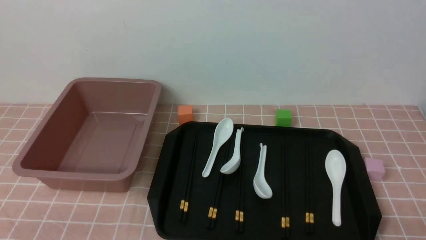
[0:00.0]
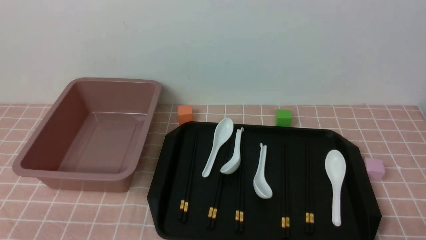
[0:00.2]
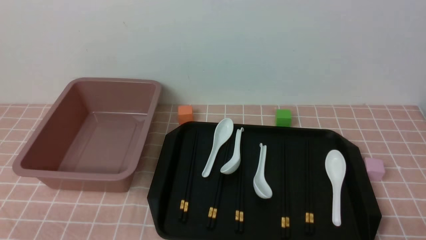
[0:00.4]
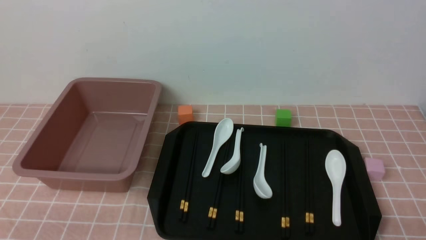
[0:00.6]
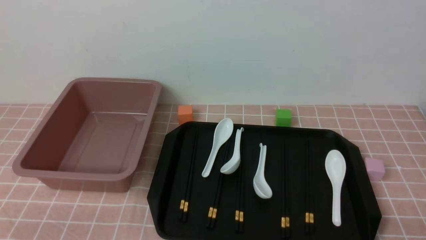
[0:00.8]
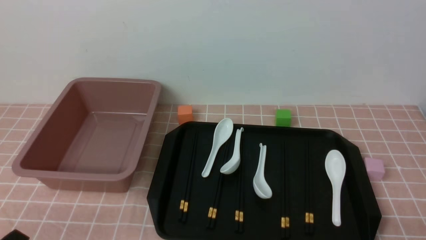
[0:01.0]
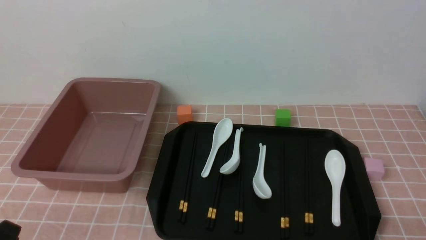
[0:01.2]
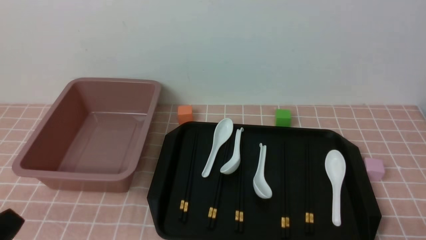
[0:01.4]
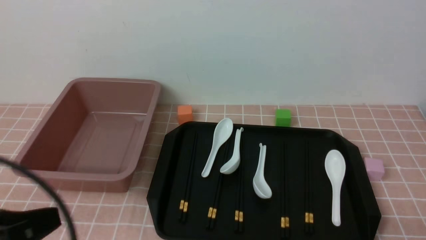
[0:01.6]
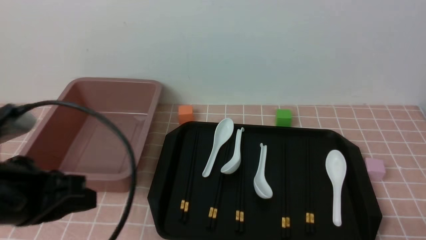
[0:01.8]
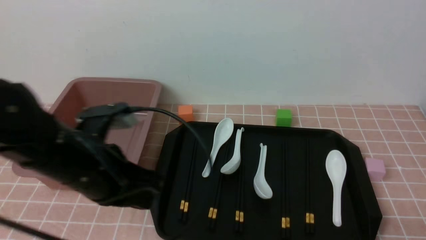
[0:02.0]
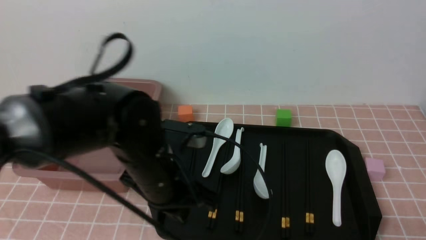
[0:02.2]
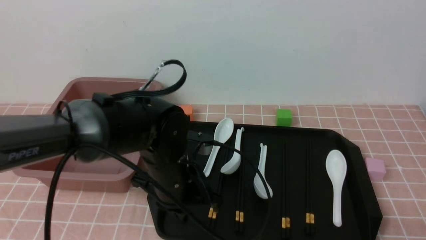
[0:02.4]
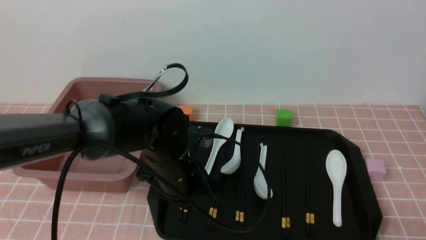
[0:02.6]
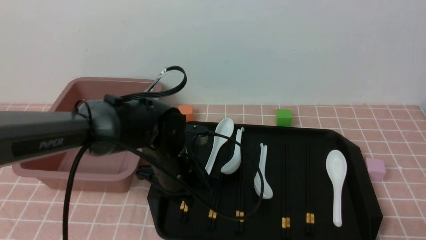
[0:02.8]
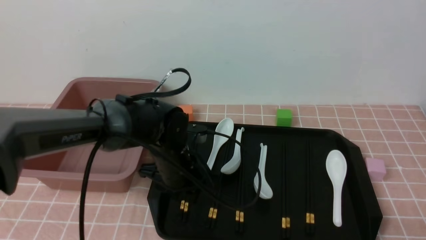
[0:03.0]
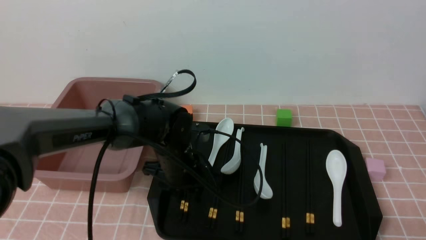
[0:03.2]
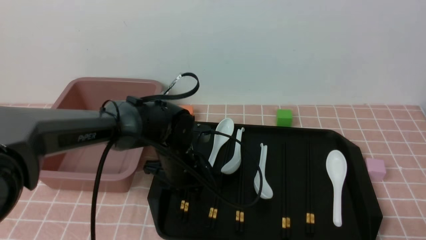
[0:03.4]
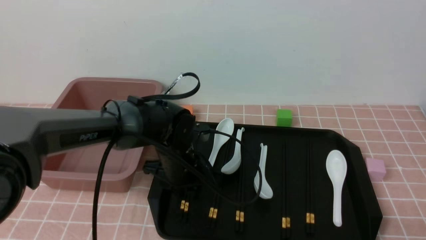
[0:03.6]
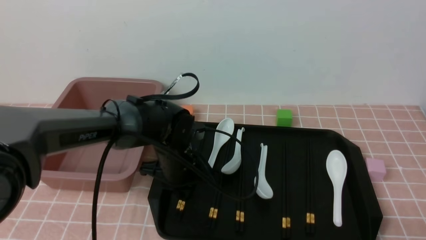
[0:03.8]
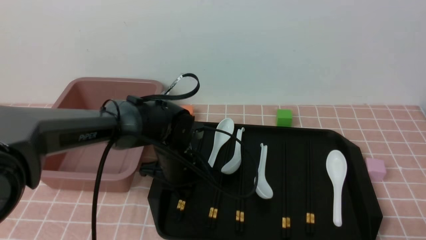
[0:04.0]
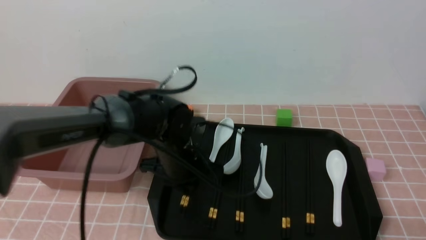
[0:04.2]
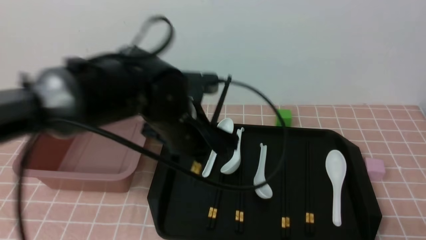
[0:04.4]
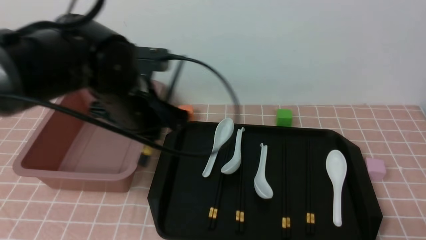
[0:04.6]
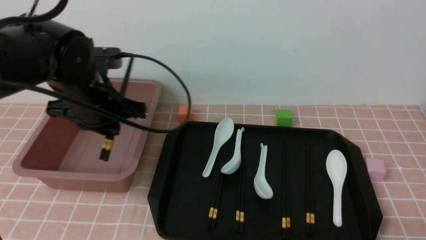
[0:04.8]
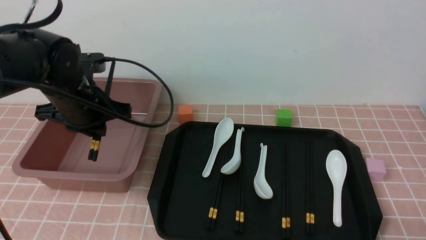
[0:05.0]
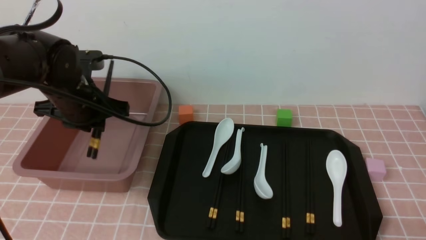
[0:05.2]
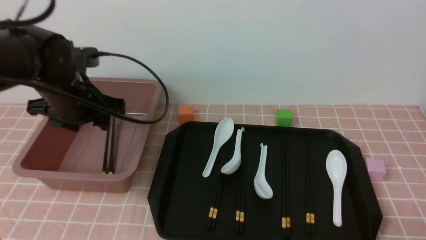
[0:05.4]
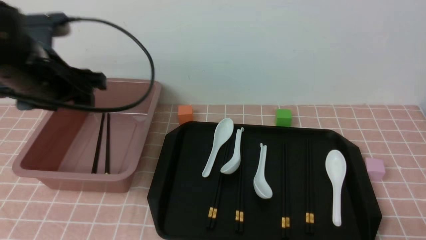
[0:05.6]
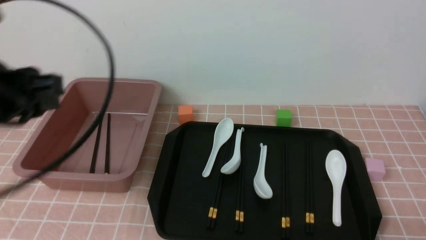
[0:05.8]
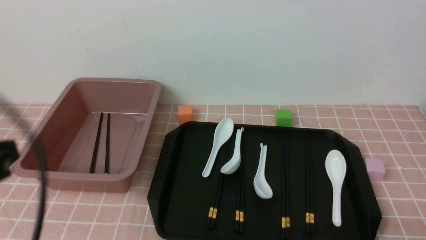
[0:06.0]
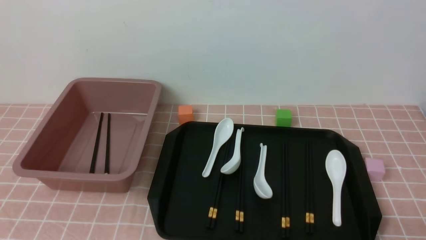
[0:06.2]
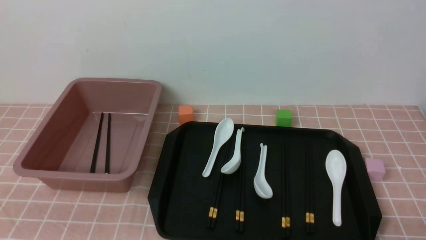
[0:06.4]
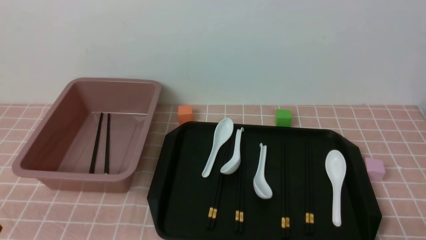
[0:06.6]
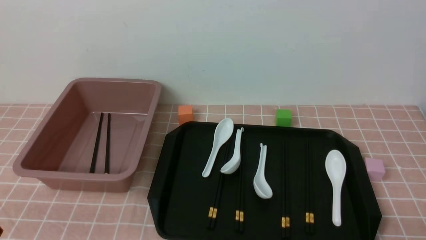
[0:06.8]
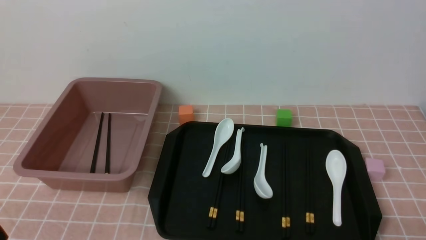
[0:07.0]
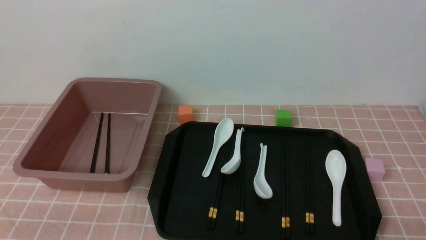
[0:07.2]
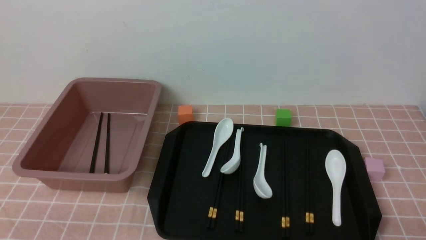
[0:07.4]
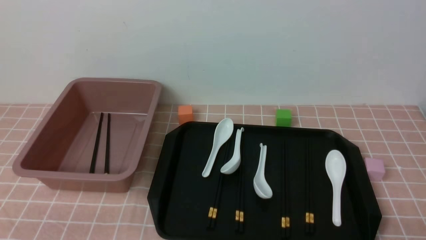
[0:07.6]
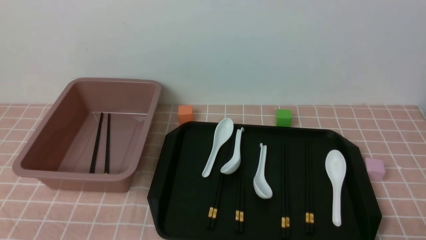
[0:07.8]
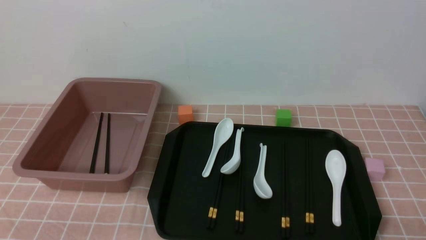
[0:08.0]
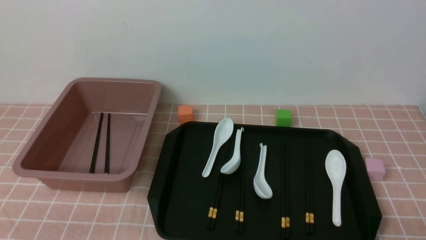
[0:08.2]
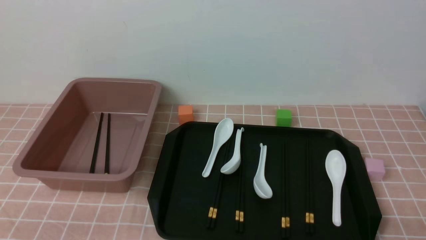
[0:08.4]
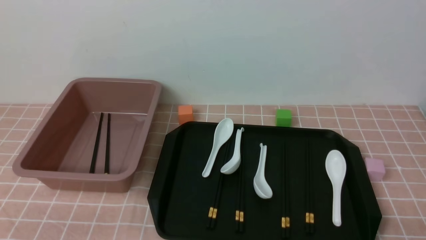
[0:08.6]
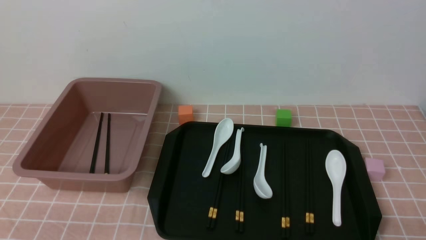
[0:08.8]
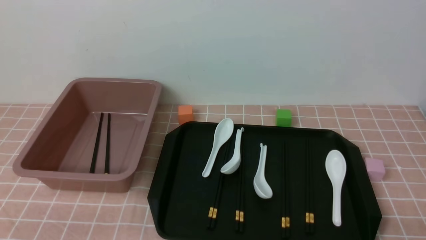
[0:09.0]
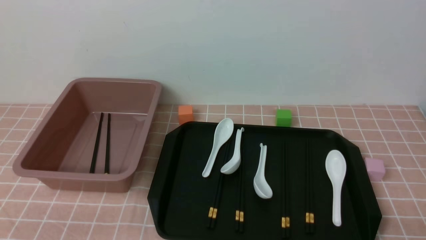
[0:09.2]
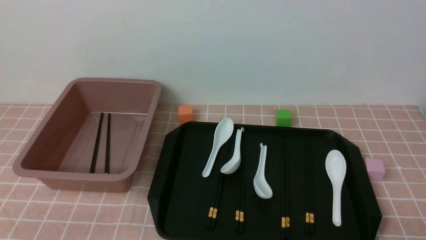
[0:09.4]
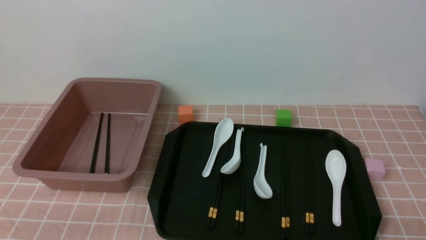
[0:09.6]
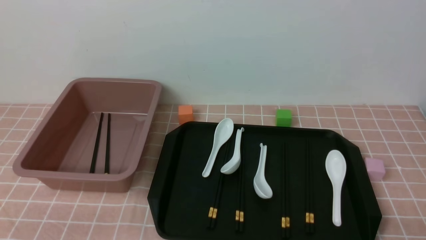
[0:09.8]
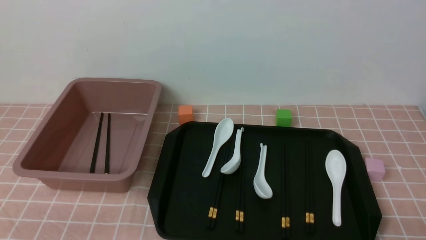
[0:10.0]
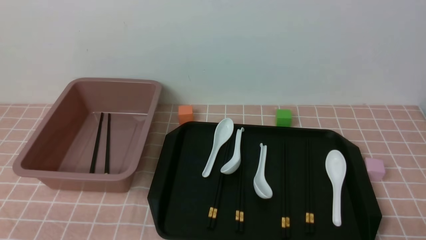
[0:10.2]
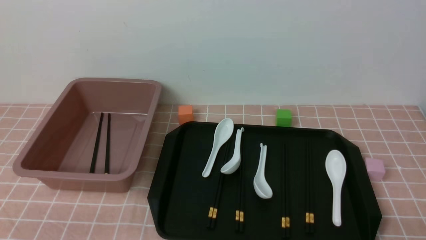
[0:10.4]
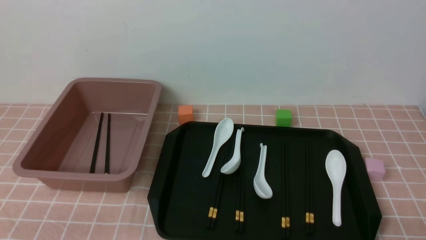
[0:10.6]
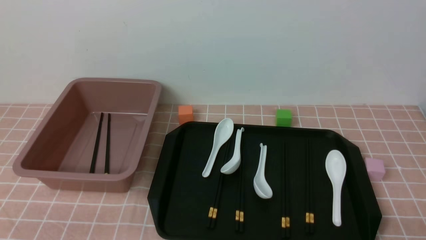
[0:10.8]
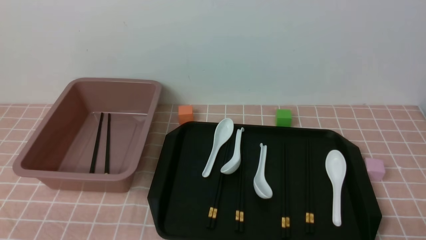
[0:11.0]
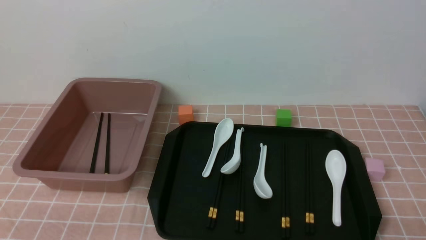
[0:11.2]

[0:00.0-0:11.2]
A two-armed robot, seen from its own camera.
Step, 0:00.0 to 0:04.4: use the left arm to grab a pair of chopsticks.
Step, 0:04.6 to 0:05.6: use the left arm to put the chopsticks into the lunch box.
0:01.6 to 0:03.2: The left gripper travels forward and to the right by roughly 30 cm, and opens.
0:03.2 to 0:04.8: The left gripper goes roughly 15 cm upward and to the left, and closes up.
0:04.8 to 0:06.4: The left gripper moves backward and to the left, some 30 cm, and opens, then closes again.
0:08.0 to 0:11.2: Neither gripper changes place.

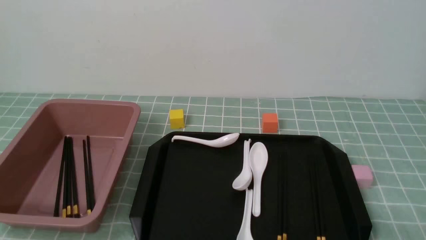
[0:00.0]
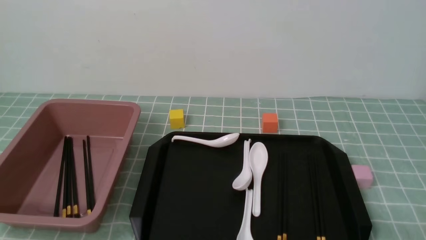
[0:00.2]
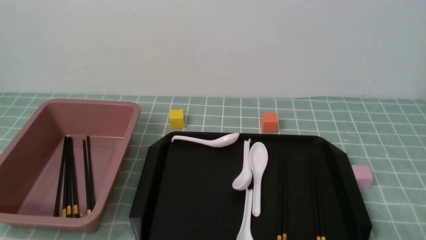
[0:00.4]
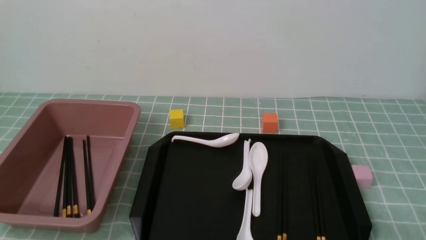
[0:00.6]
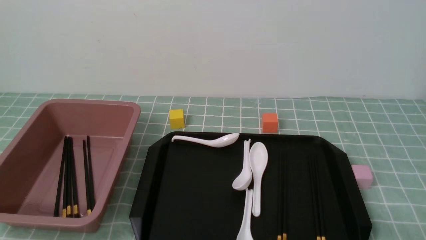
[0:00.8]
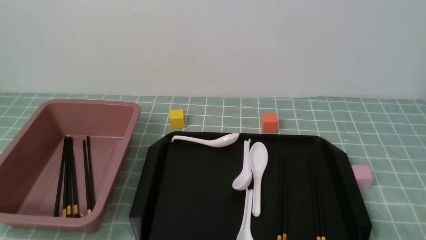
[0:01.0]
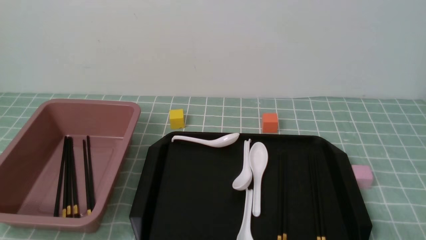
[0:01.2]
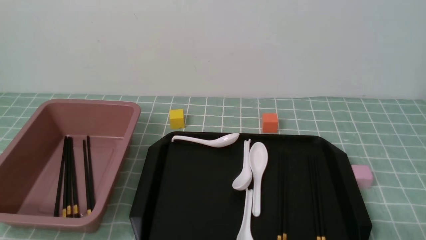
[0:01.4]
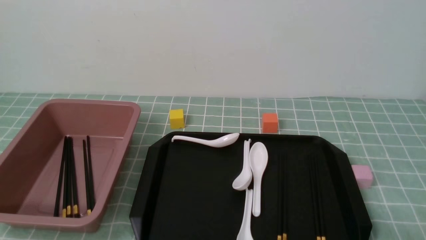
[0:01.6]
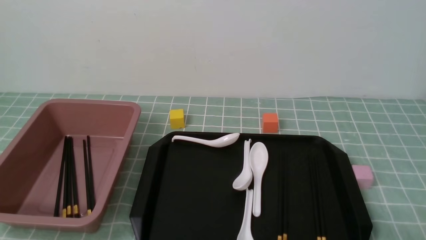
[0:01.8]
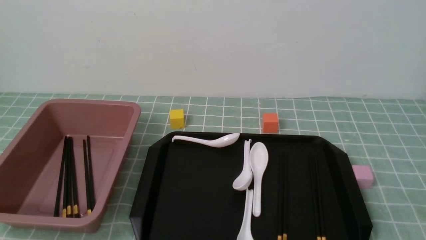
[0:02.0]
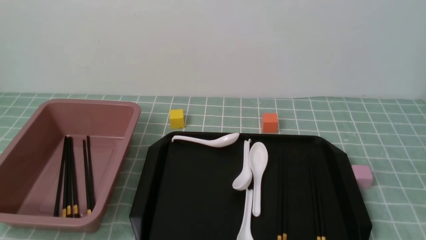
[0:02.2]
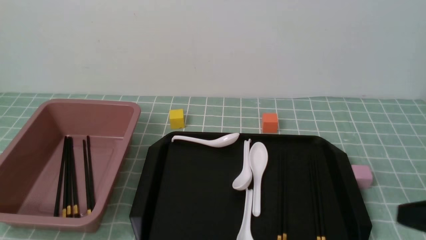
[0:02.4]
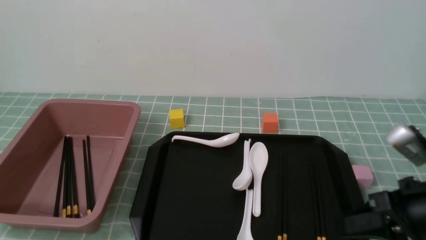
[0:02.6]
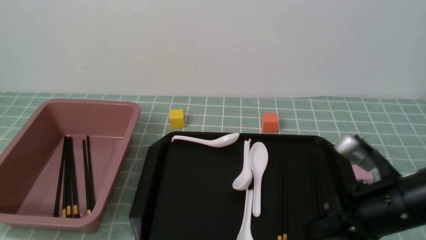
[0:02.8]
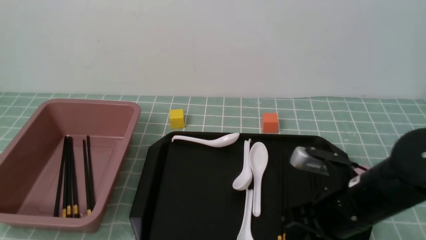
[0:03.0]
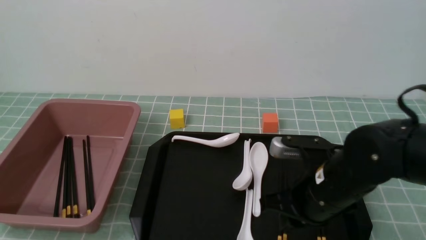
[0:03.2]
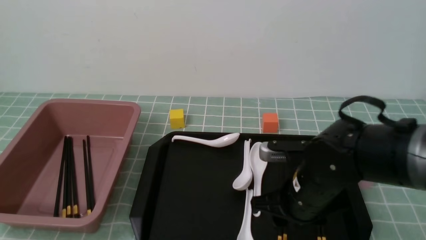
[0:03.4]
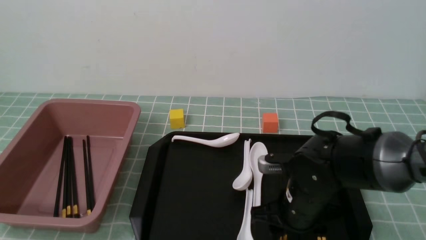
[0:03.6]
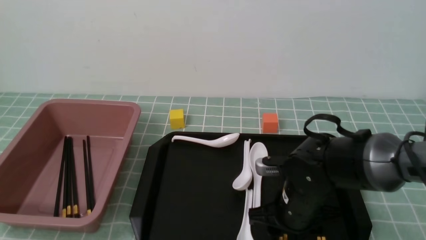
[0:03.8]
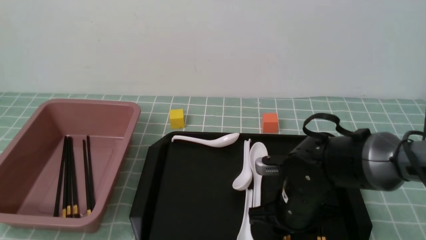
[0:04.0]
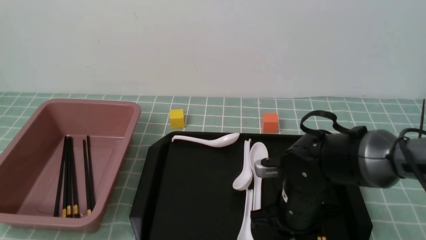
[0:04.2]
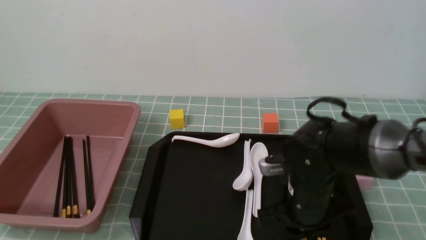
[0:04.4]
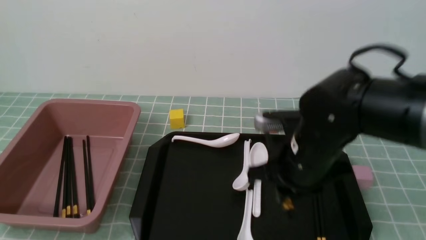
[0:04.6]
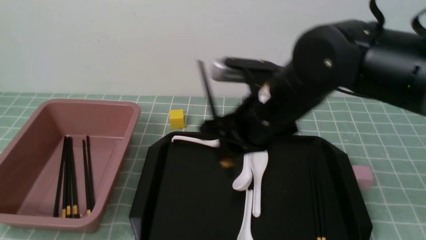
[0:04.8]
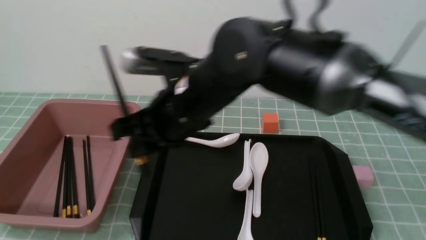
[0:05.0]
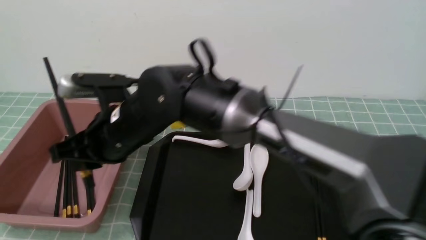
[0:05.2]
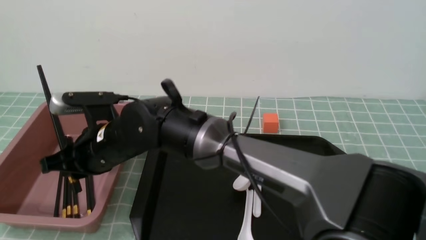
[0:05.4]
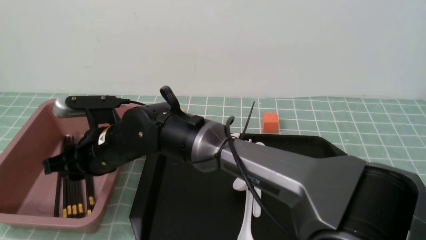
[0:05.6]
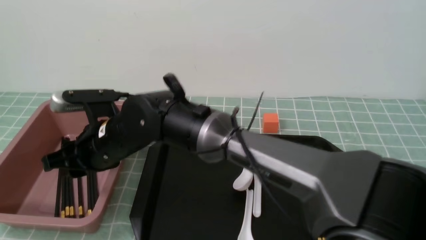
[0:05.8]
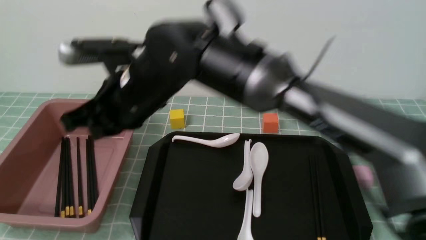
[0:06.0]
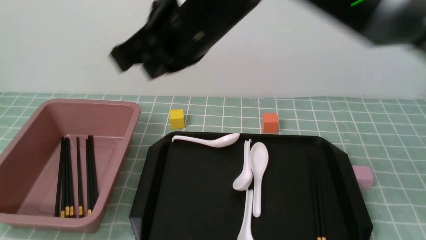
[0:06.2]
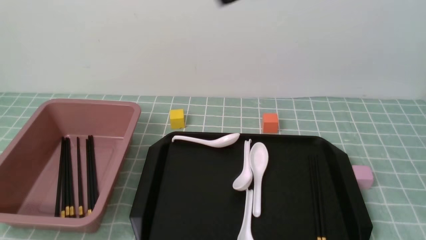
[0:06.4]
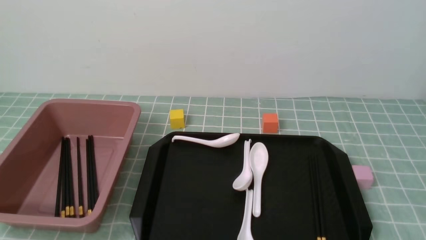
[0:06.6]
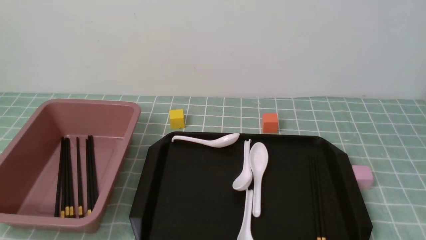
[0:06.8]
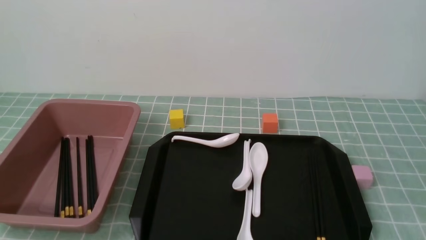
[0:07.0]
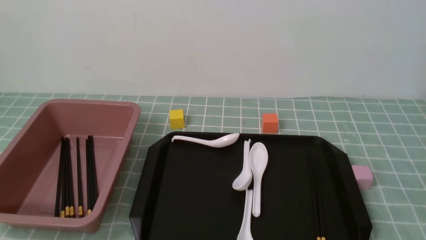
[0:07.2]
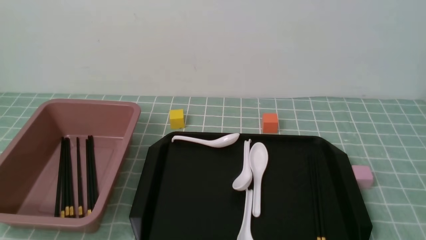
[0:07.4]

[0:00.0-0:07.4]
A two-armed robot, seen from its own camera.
Step, 0:00.0 to 0:04.6: use the right arm to grab a pair of chopsticks.
Step, 0:04.8 to 0:06.0: use the right arm to put the chopsticks into the lunch box.
0:01.4 to 0:03.0: The right gripper heads forward and to the left, covering roughly 20 cm, and closes up.
0:03.0 to 0:04.4: The right gripper is displaced to the left by approximately 5 cm, and opens, then closes once more.
0:04.4 to 0:06.0: The right gripper is displaced to the left and upward by roughly 25 cm.
0:06.0 to 0:07.4: The right gripper moves to the right and backward, some 40 cm.
